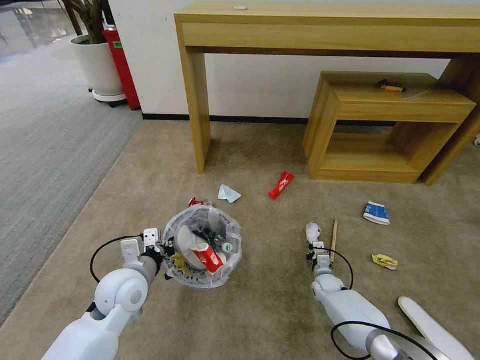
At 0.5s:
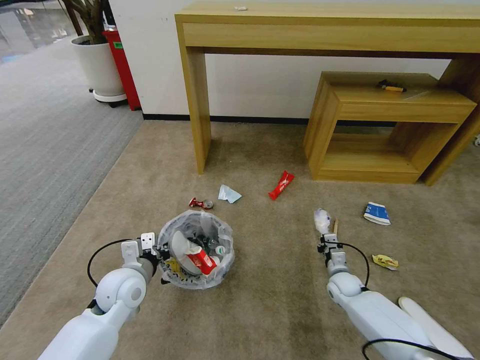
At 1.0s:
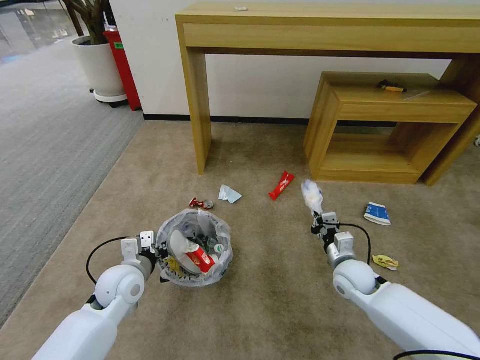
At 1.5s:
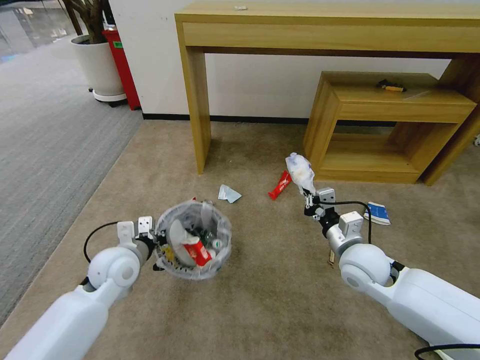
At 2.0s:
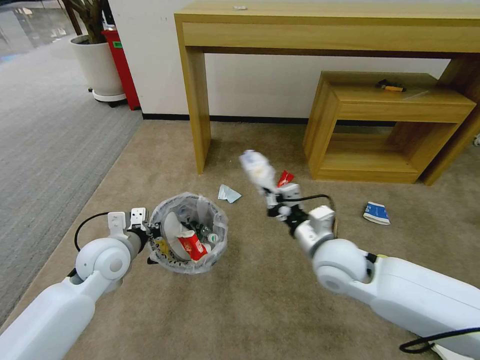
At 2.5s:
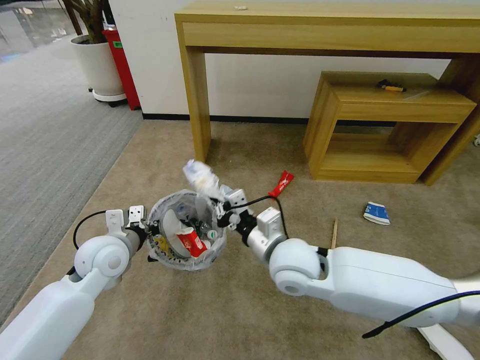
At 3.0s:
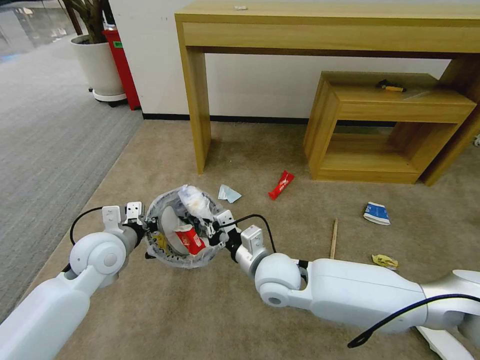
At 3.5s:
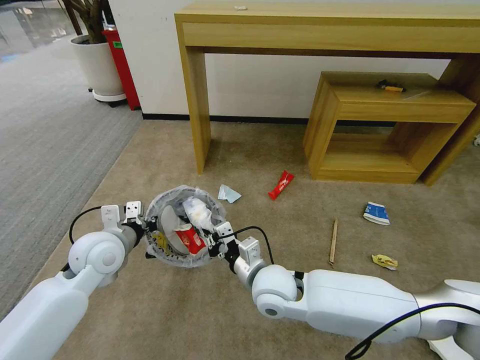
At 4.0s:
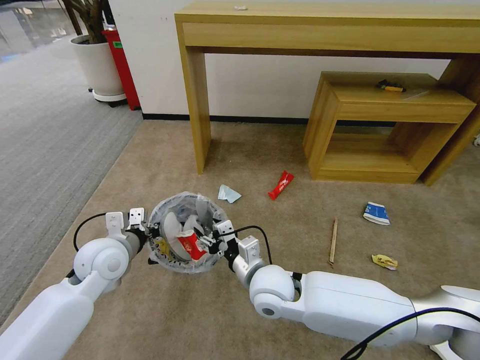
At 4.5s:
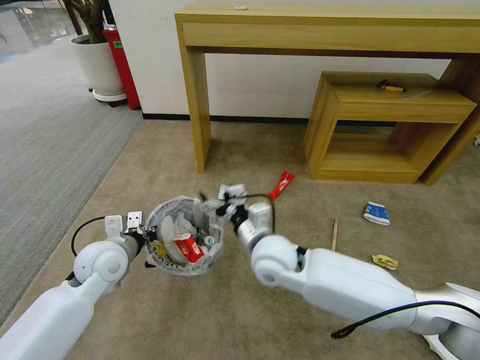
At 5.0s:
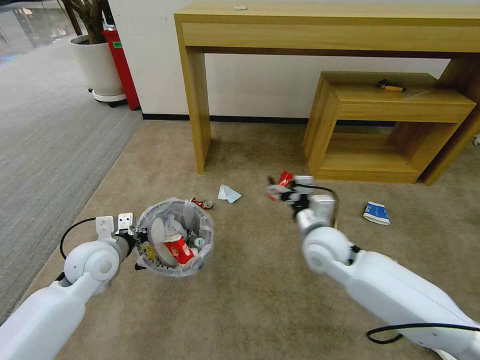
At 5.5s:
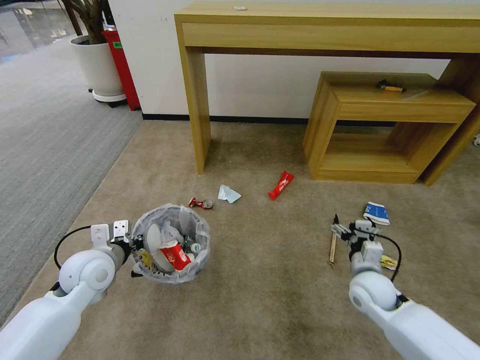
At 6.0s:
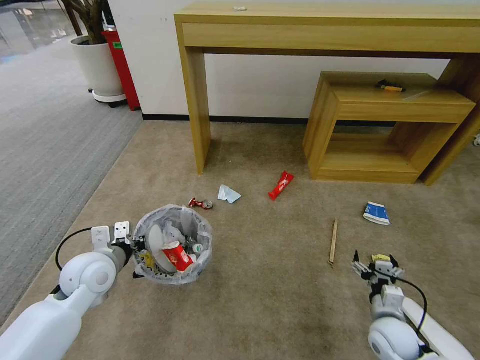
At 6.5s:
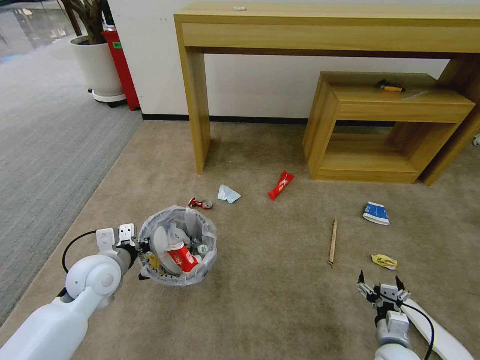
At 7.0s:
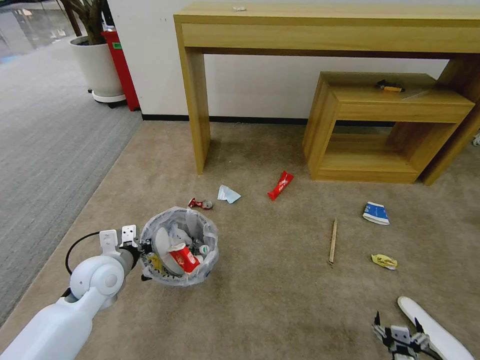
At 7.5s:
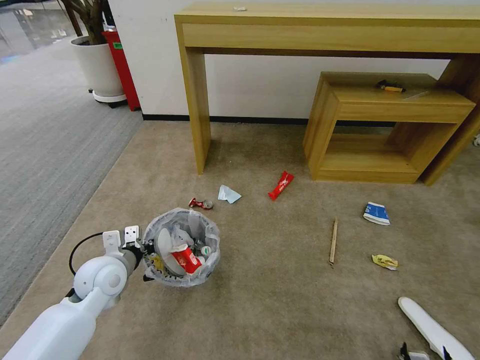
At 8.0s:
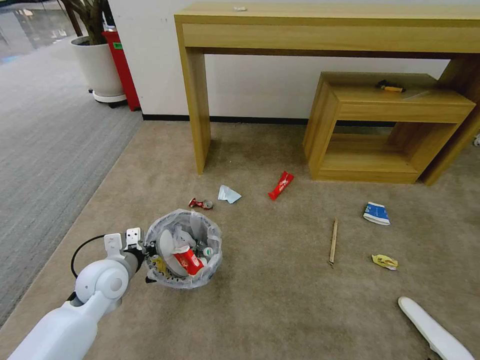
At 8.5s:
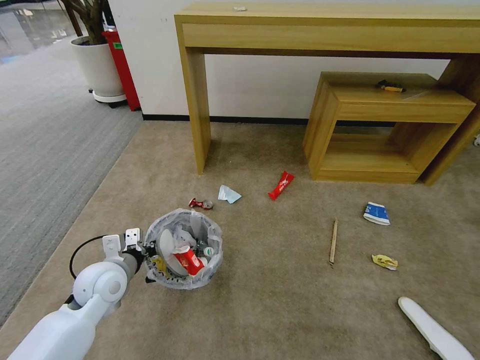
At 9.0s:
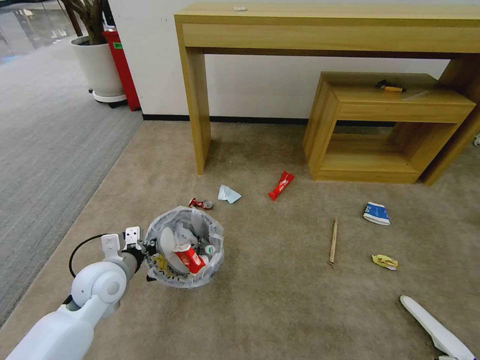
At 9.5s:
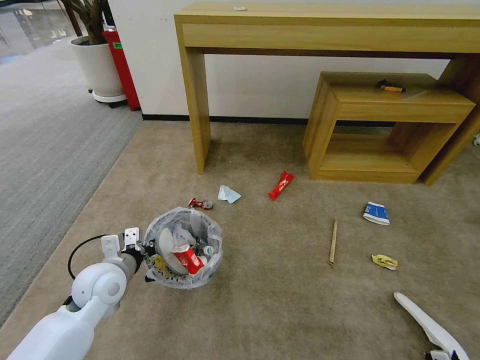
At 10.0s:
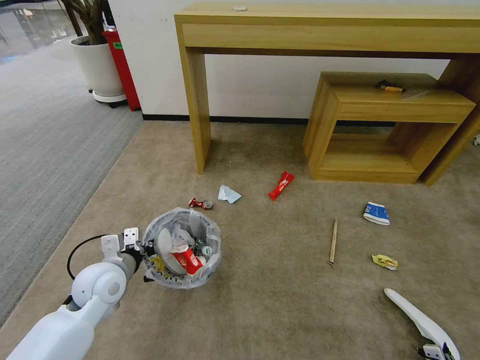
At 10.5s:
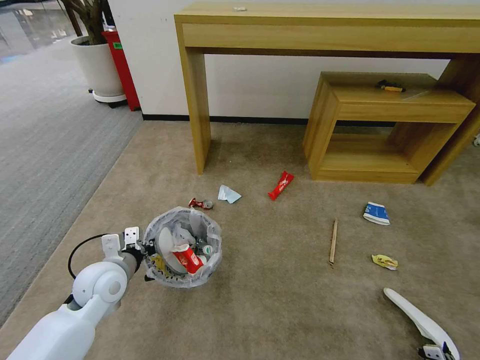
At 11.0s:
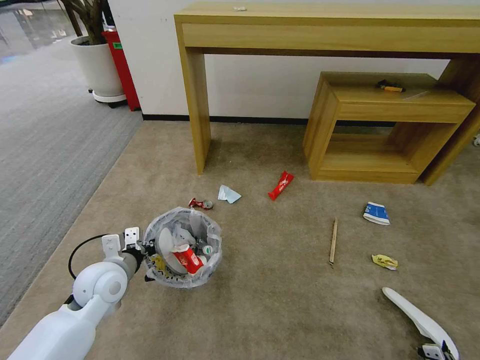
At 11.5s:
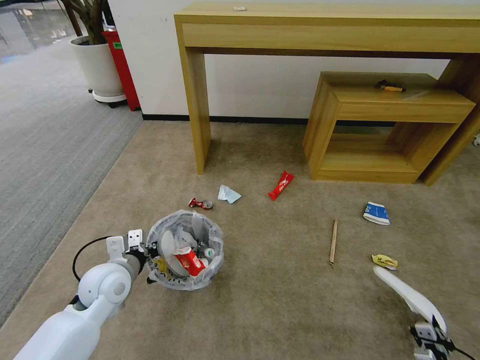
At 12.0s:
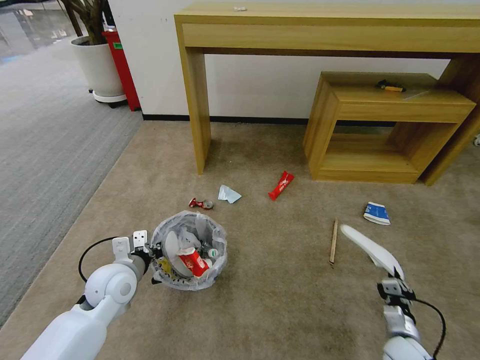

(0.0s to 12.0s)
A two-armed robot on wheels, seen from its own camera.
Task of the whole recording: Pick up the trash bin and place the garbage on the floor into it.
0.0s - 2.0s: The right gripper shifts roughly 35 cm upward; the left gripper moves roughly 10 cm.
2.0s - 4.0s: The right gripper goes approximately 15 cm to the left and downward, and opens its fingers.
4.0s - 6.0s: The right gripper travels to the right and downward by roughly 35 cm.
6.0s - 8.0s: The right gripper travels backward, downward and to the right by roughly 25 cm.
8.0s - 10.0s: The right gripper closes its fingers.
10.0s - 12.0s: The right gripper goes approximately 15 cm forward, upward and to the left.

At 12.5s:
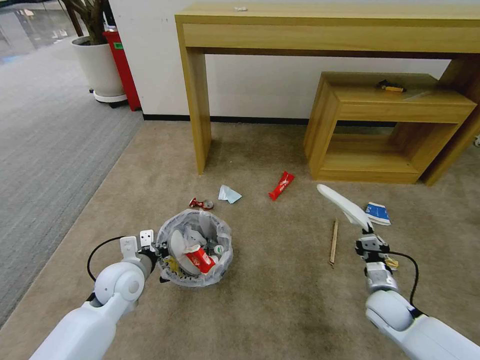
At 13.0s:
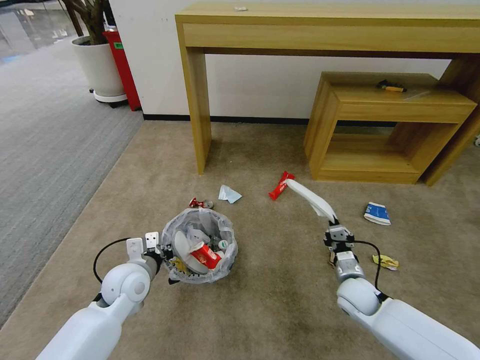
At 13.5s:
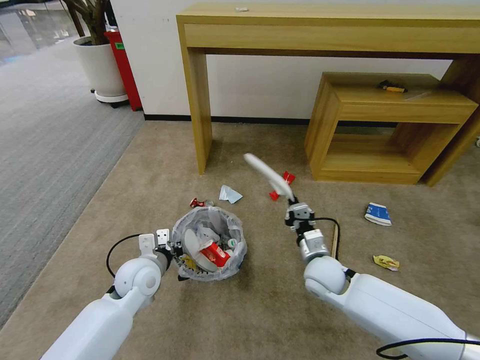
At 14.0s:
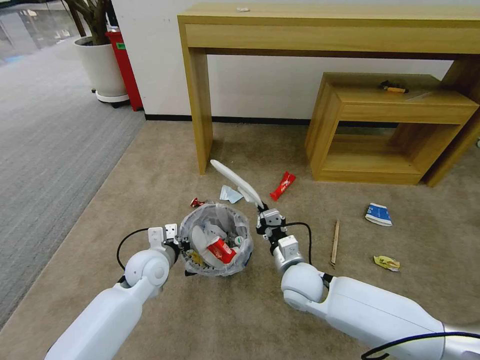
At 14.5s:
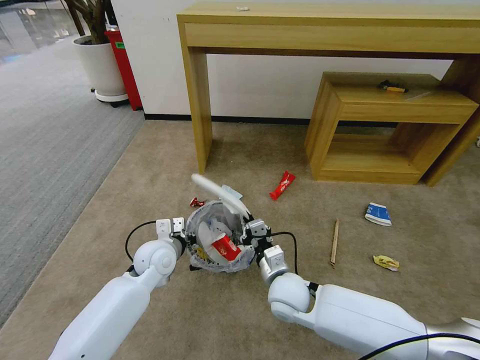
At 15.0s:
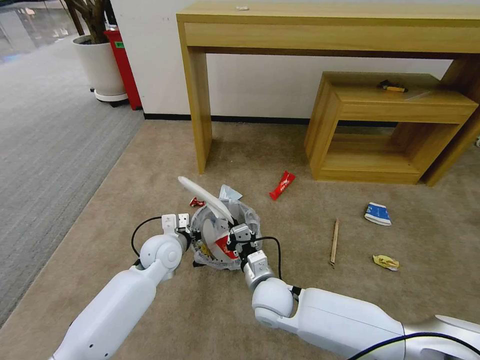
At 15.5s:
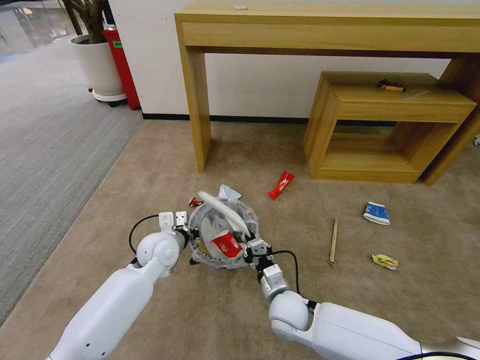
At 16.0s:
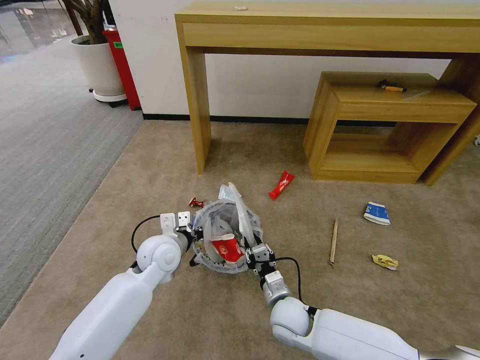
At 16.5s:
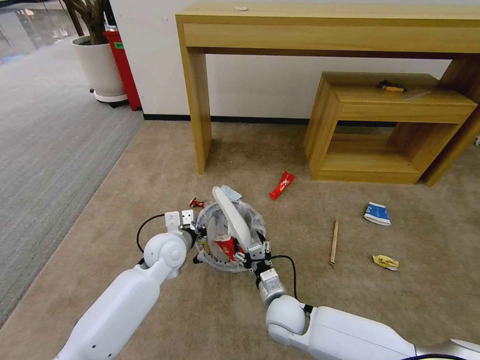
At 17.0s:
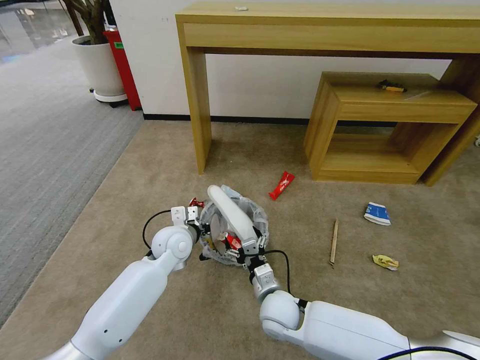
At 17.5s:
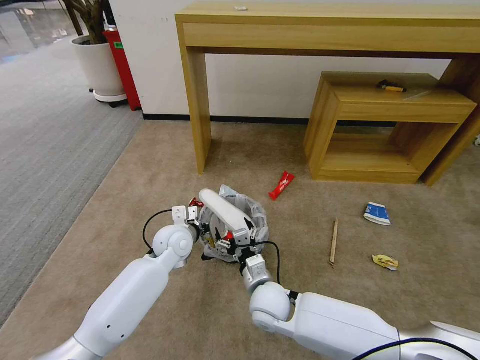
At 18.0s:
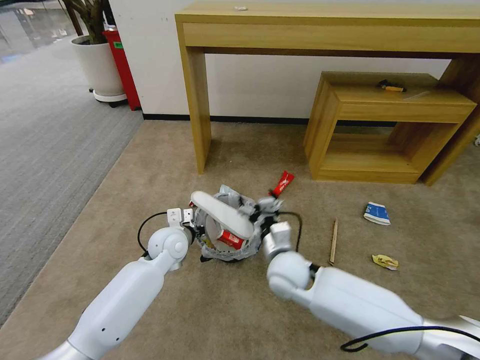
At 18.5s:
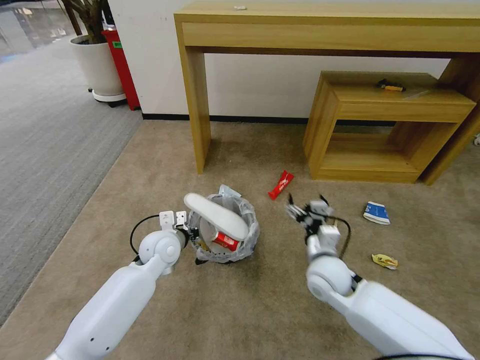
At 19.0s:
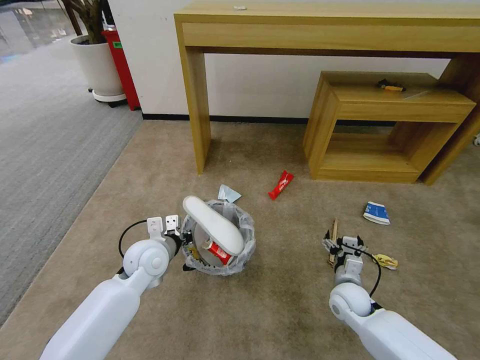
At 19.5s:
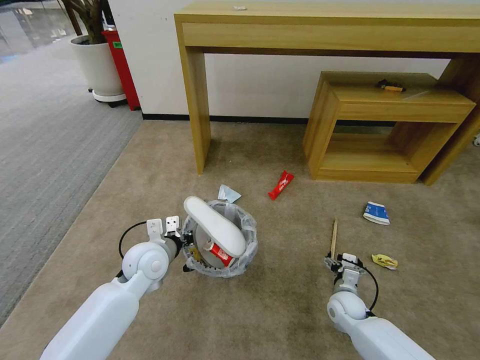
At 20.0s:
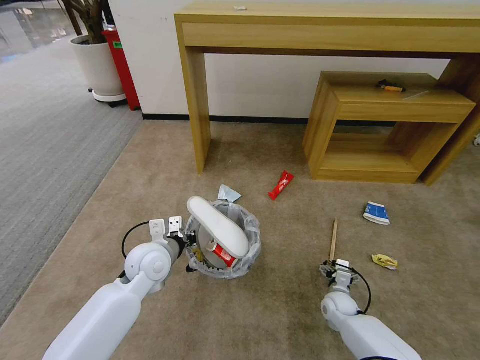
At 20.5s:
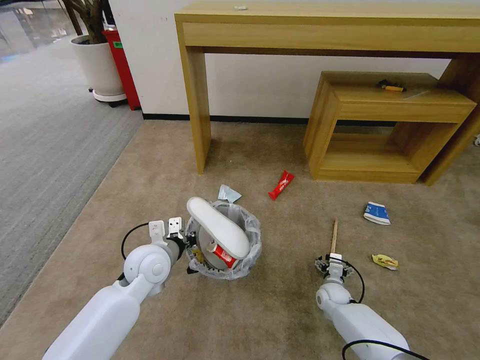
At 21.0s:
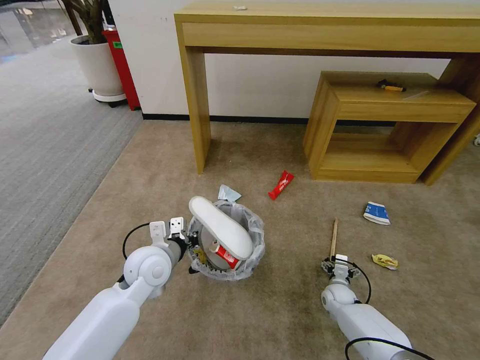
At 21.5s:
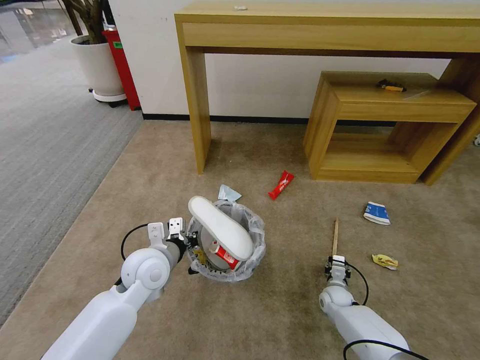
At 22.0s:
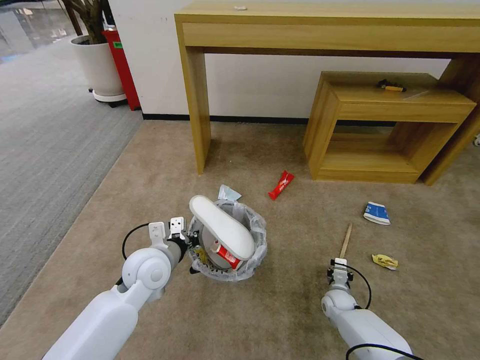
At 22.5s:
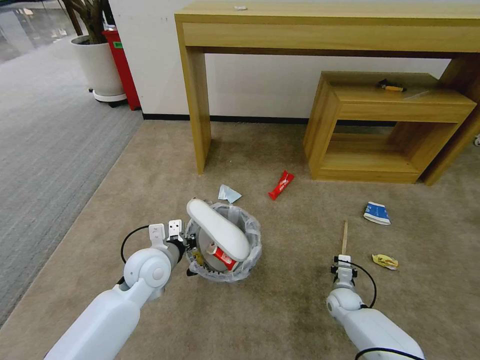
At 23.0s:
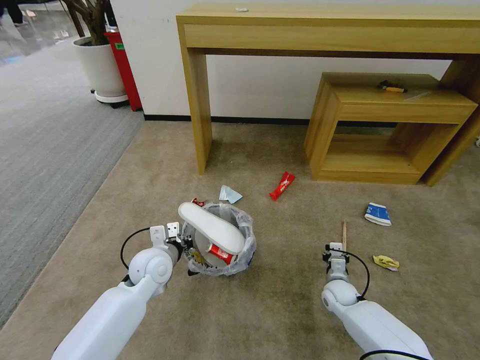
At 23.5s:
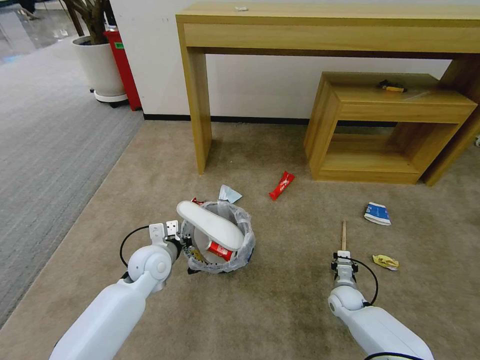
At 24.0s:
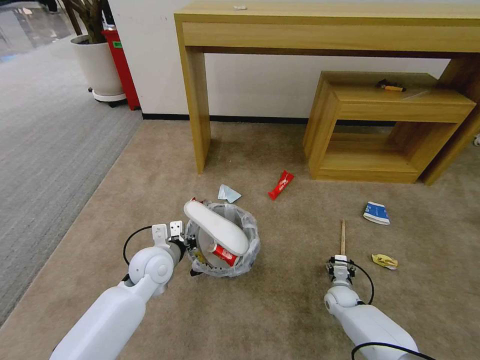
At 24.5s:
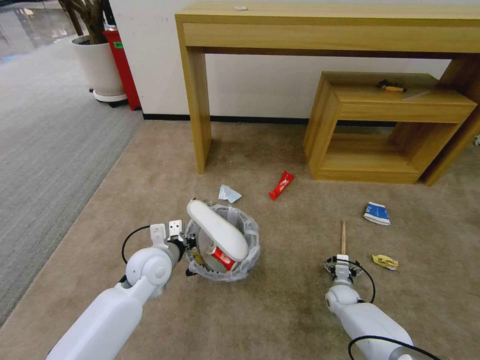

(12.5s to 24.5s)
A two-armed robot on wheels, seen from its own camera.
Task of the whole recording: Pick up the trash bin and place the garbage on the floor into it.
12.5s - 14.5s: The left gripper shifts roughly 10 cm to the right and forward; the right gripper travels to the left by about 25 cm.
14.5s - 16.5s: The right gripper shifts some 5 cm downward, and opens.
16.5s - 18.5s: The right gripper goes some 15 cm to the right, upward and forward.
18.5s - 20.5s: The right gripper moves downward, approximately 20 cm. Meanwhile the left gripper moves backward, roughly 5 cm.
20.5s - 22.5s: The right gripper closes up.
22.5s - 24.5s: The right gripper opens its fingers.

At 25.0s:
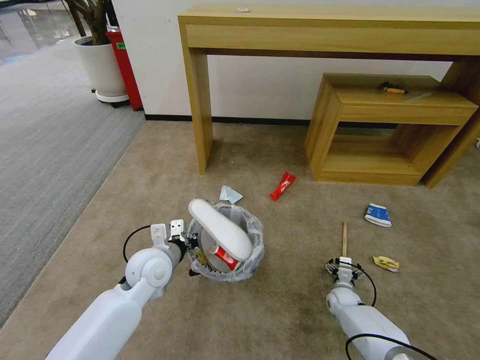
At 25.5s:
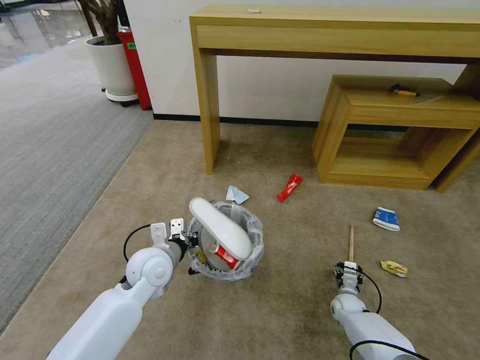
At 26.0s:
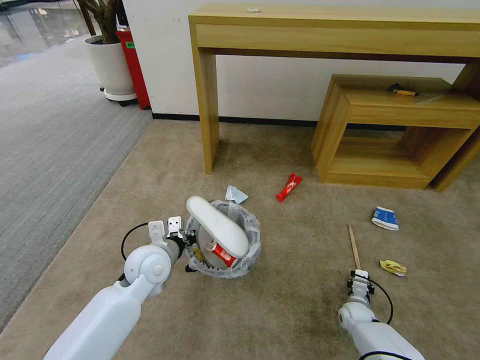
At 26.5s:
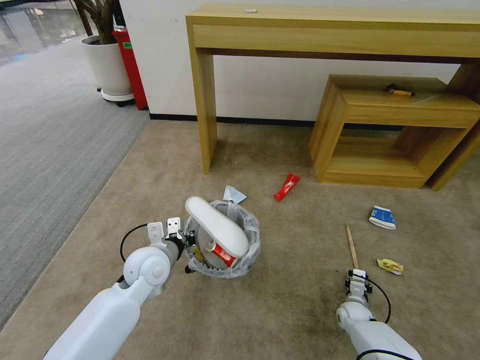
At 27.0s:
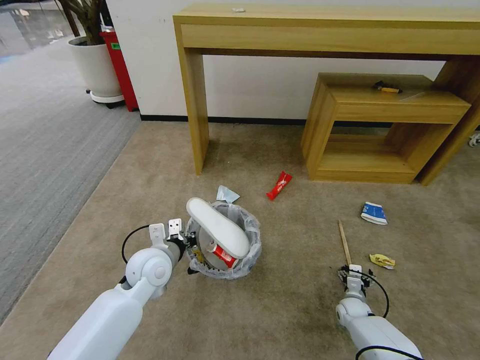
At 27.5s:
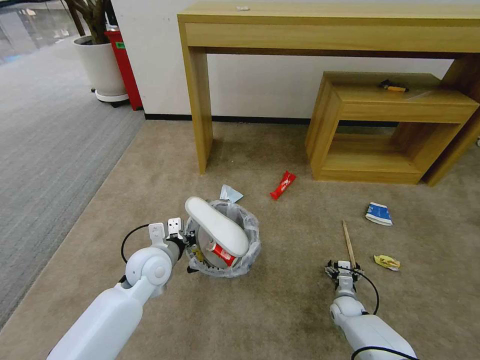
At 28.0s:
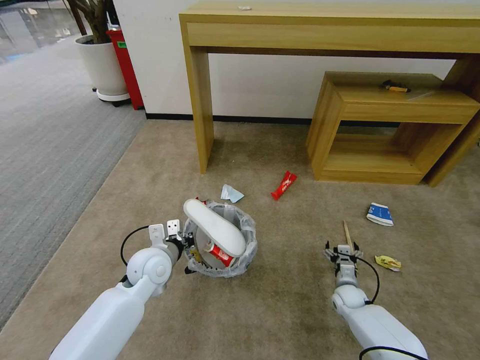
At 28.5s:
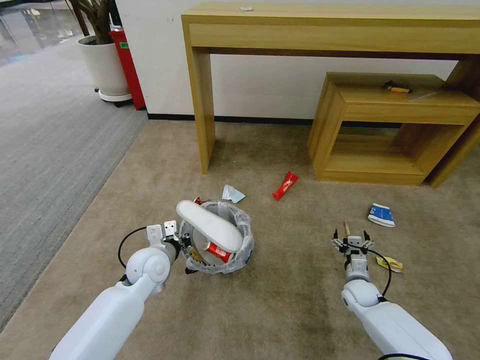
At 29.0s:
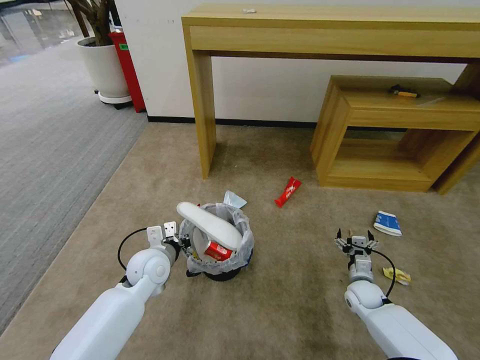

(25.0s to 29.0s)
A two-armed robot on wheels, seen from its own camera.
Task of the whole recording: Pick up the trash bin and place the garbage on the floor into it.
25.0s - 27.0s: The right gripper closes, then reopens.
27.0s - 29.0s: The right gripper is displaced upward by approximately 10 cm.
